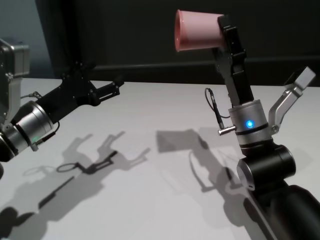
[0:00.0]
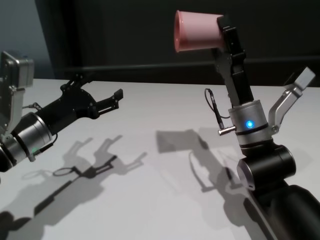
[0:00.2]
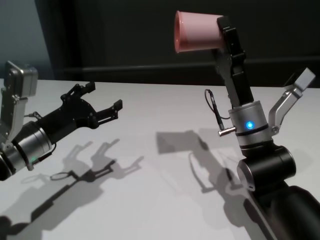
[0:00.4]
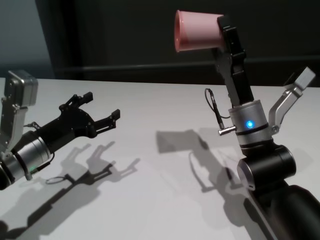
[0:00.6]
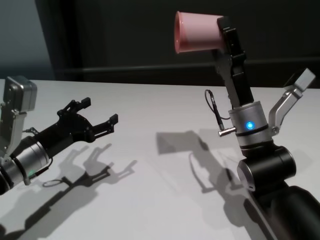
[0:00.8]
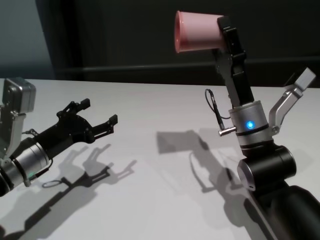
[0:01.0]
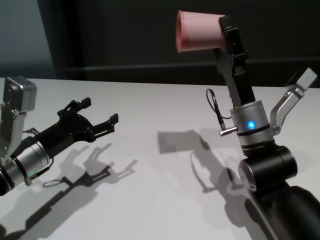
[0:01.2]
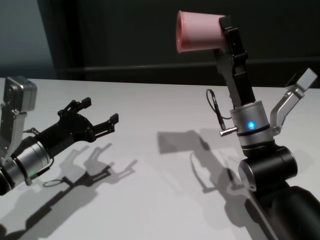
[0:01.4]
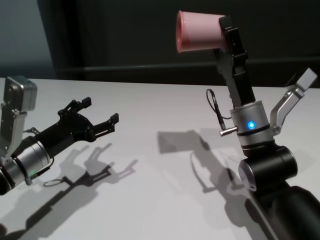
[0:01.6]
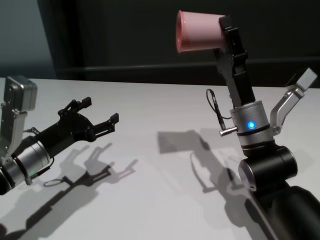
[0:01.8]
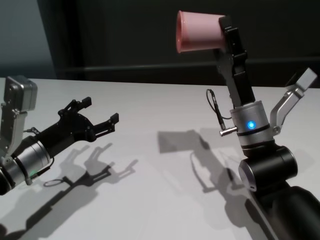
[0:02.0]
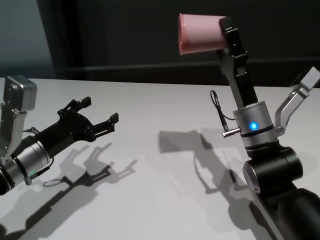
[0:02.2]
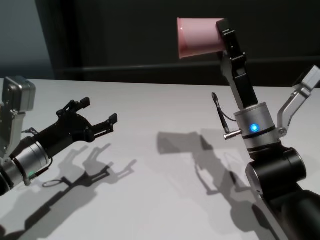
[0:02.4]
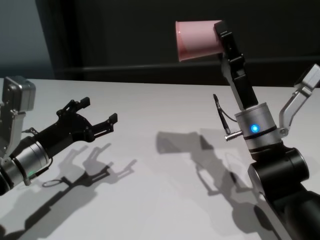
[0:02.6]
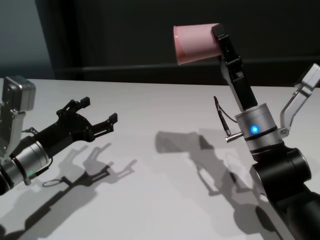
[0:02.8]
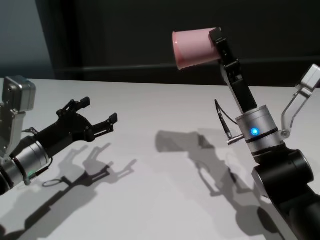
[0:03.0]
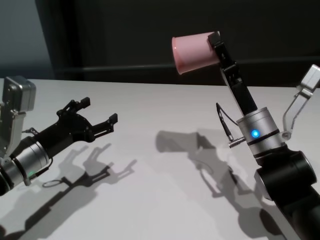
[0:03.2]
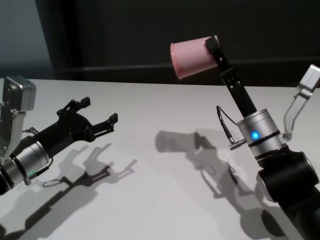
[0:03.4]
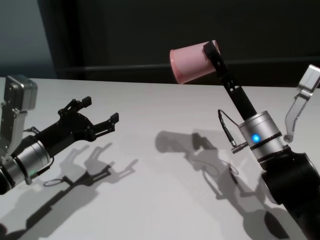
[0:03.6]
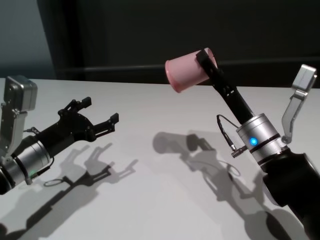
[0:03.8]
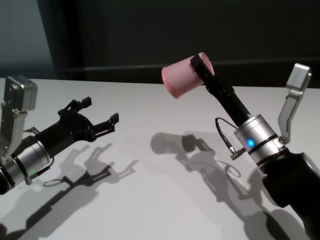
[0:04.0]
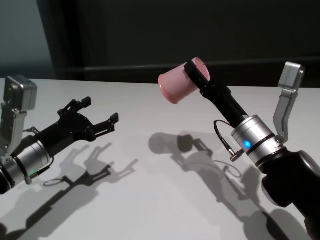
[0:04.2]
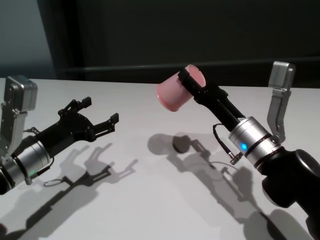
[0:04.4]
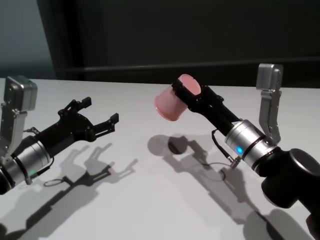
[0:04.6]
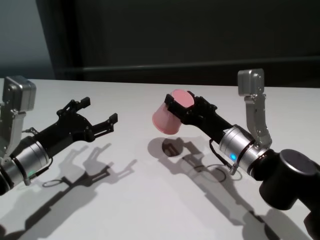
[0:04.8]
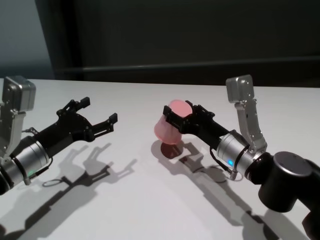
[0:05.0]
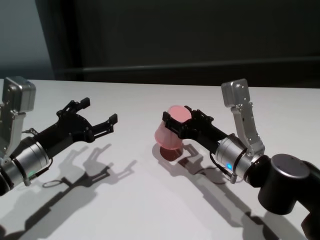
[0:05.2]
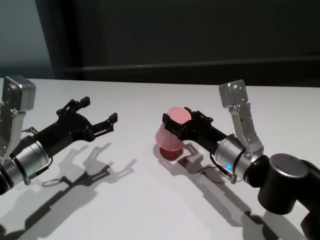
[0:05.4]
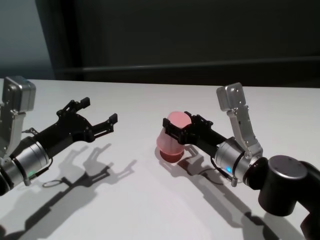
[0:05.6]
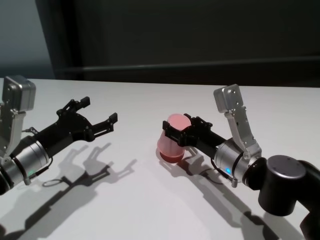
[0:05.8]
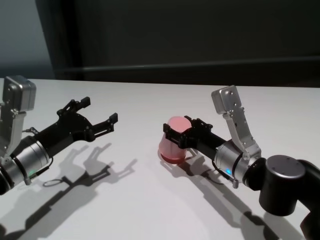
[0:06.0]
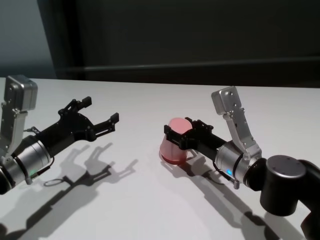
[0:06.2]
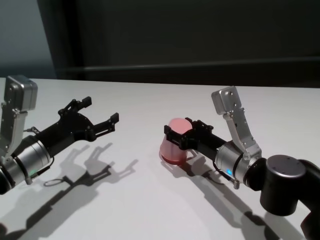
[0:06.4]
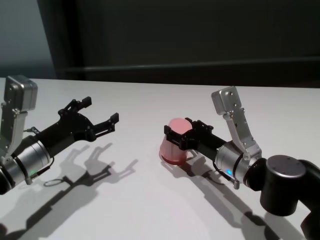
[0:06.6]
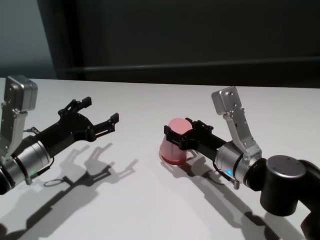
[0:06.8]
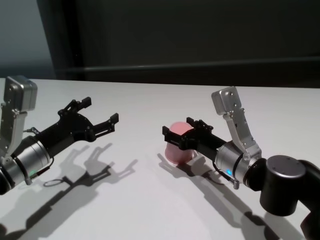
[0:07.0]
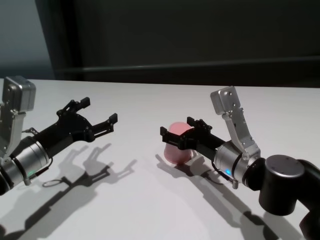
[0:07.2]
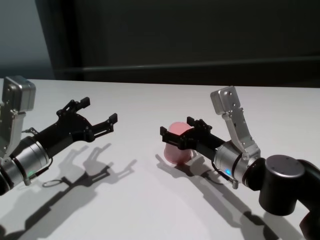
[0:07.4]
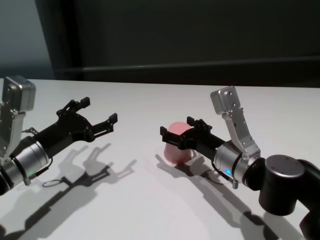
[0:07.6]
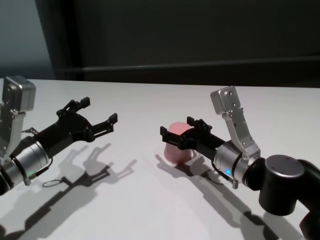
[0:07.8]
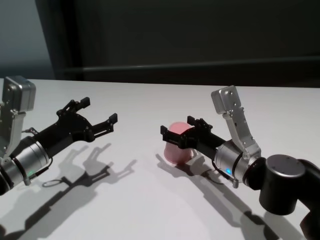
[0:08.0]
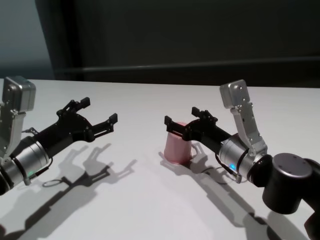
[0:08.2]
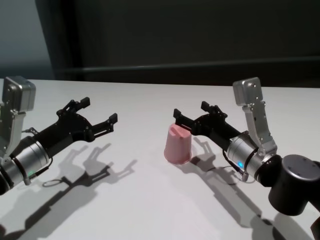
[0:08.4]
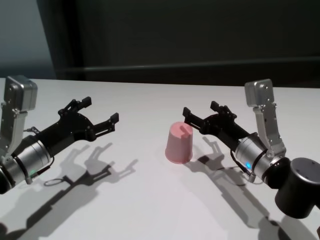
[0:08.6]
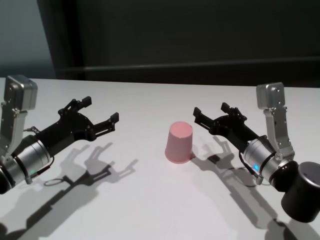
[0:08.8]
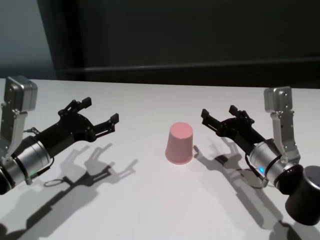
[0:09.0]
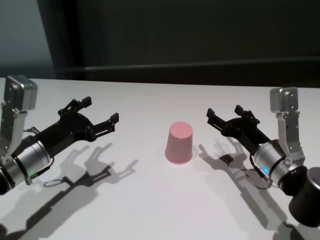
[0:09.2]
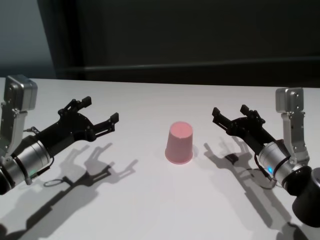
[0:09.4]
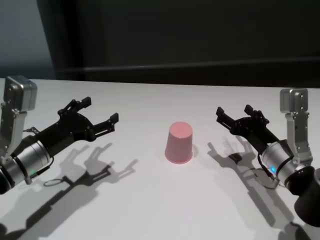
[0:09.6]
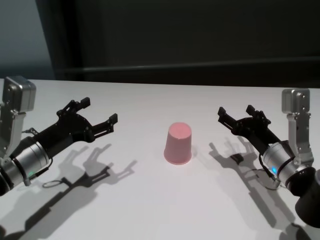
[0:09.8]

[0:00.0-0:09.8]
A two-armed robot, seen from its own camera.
Task of the whole recording: On the white table pick up the cup with one hand and transfer it to the other hand before turning it over.
Step, 0:00.0 to 0:08.2: Place the cup on the table with right gripper.

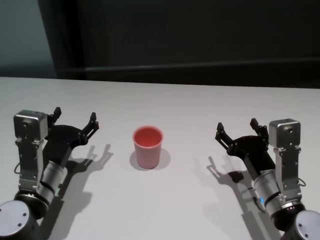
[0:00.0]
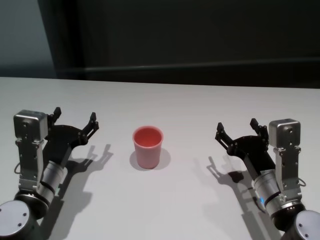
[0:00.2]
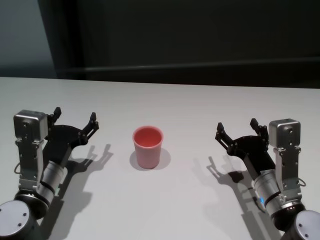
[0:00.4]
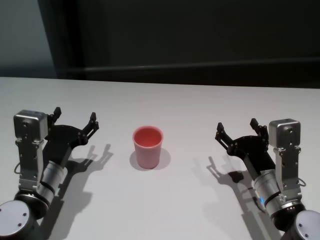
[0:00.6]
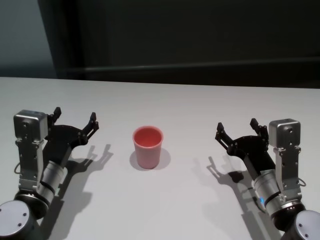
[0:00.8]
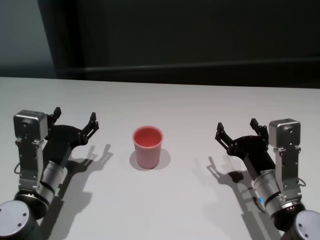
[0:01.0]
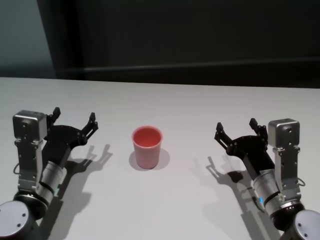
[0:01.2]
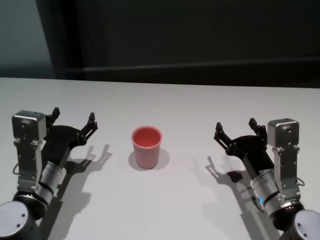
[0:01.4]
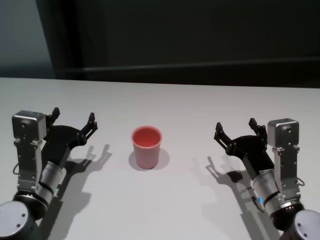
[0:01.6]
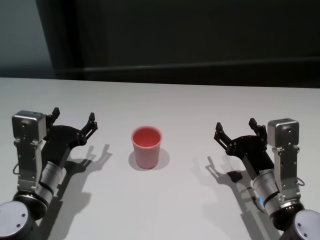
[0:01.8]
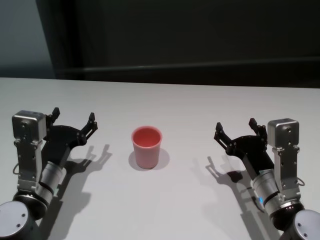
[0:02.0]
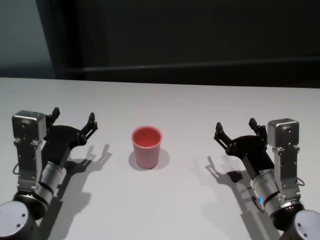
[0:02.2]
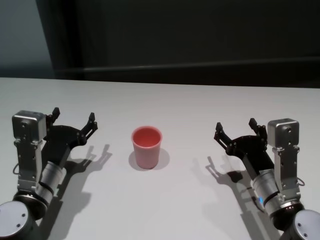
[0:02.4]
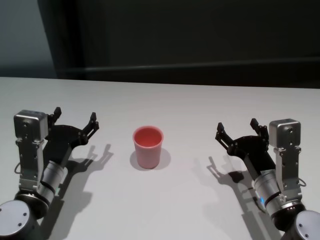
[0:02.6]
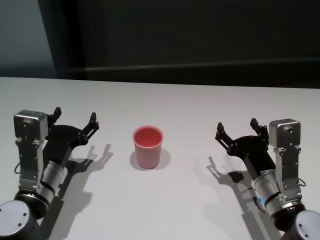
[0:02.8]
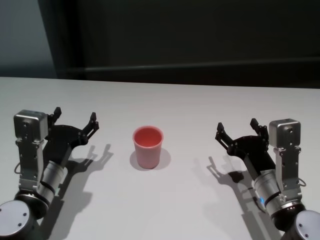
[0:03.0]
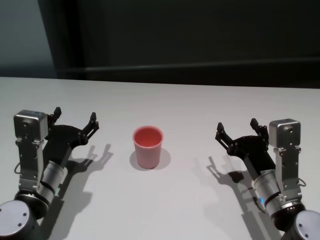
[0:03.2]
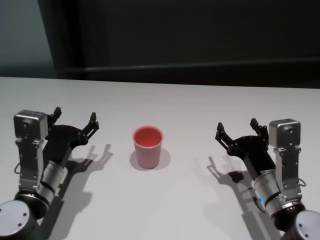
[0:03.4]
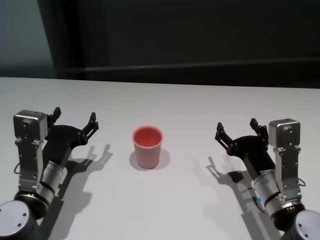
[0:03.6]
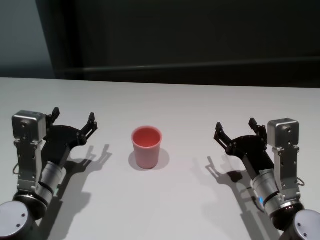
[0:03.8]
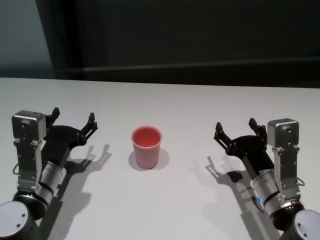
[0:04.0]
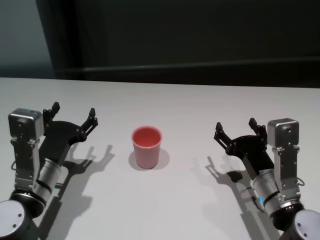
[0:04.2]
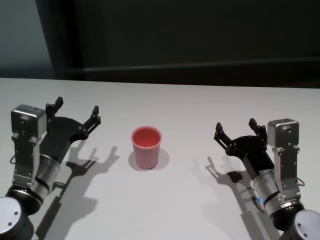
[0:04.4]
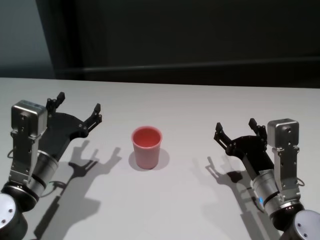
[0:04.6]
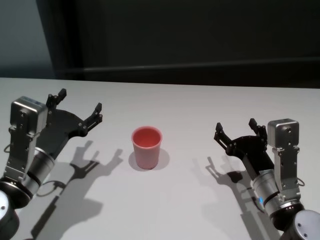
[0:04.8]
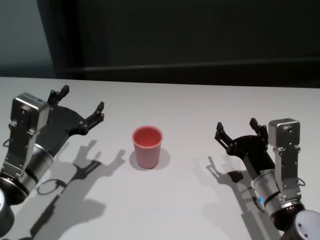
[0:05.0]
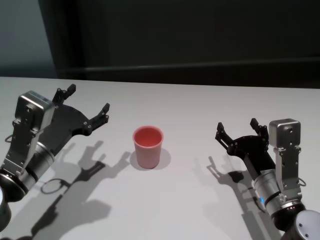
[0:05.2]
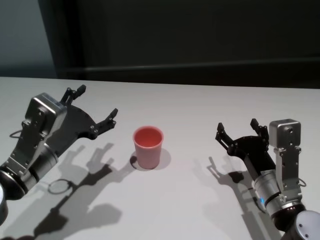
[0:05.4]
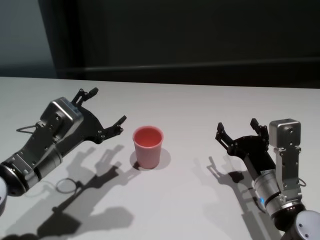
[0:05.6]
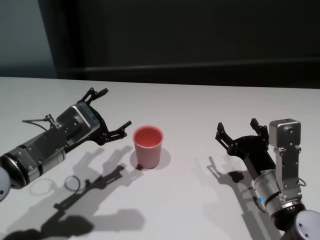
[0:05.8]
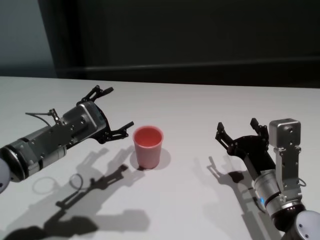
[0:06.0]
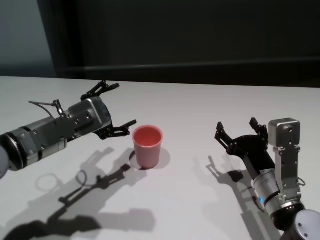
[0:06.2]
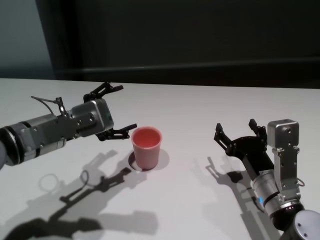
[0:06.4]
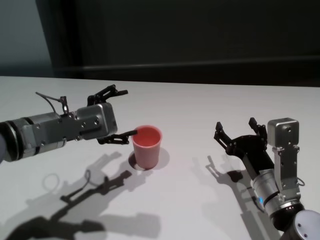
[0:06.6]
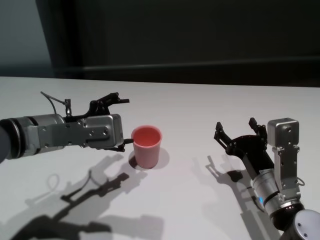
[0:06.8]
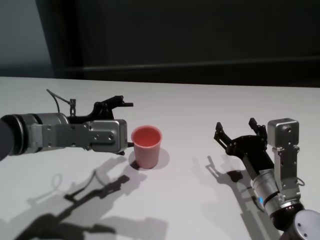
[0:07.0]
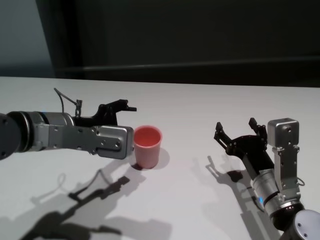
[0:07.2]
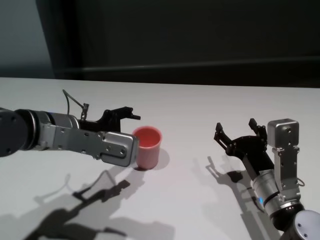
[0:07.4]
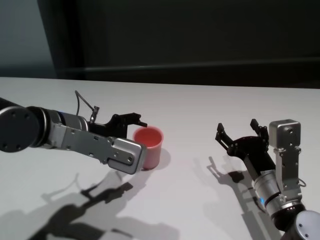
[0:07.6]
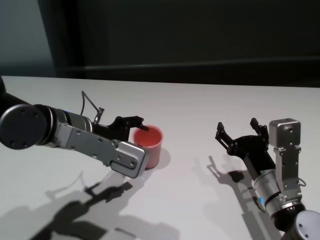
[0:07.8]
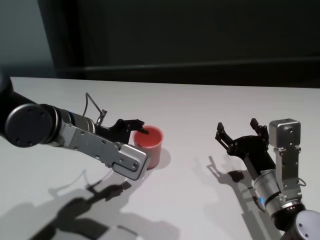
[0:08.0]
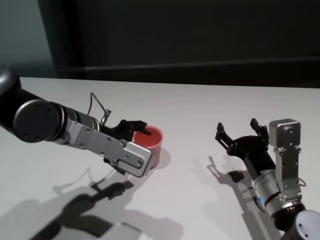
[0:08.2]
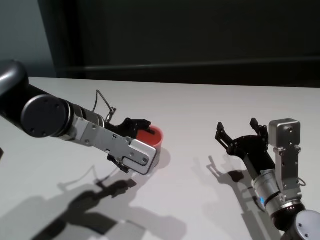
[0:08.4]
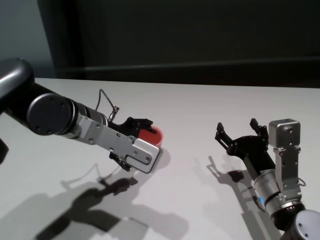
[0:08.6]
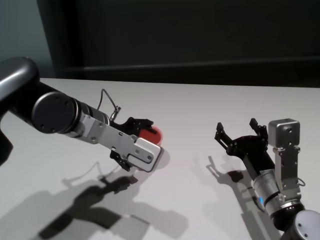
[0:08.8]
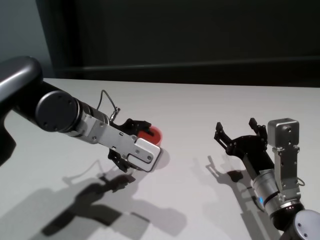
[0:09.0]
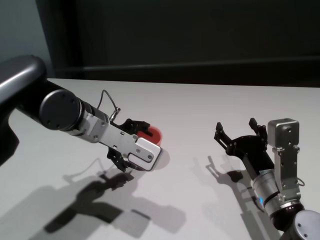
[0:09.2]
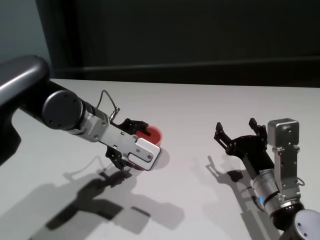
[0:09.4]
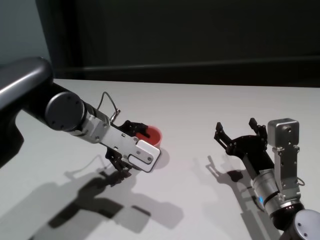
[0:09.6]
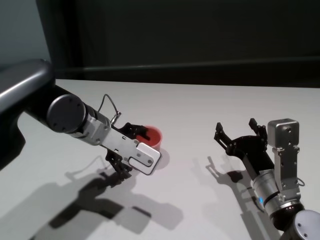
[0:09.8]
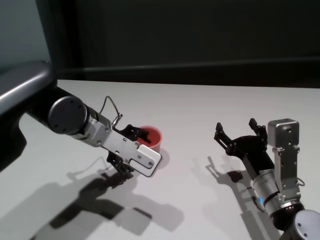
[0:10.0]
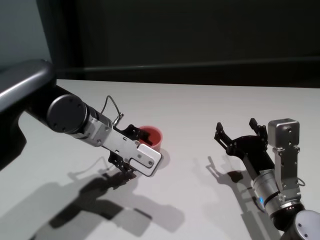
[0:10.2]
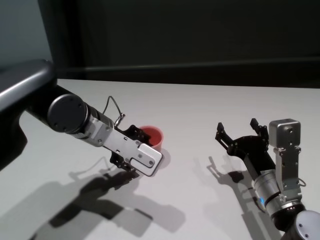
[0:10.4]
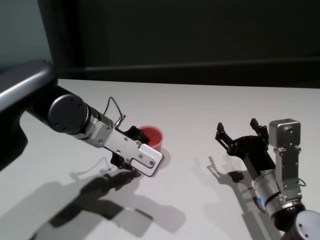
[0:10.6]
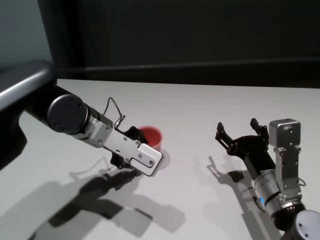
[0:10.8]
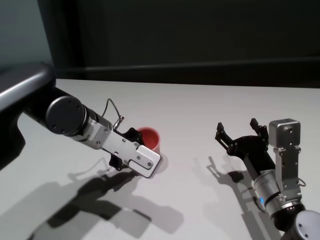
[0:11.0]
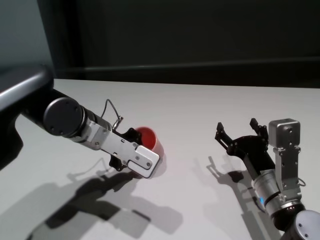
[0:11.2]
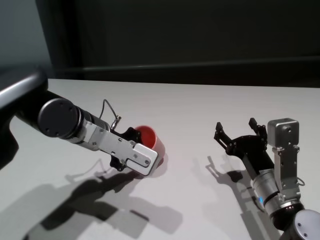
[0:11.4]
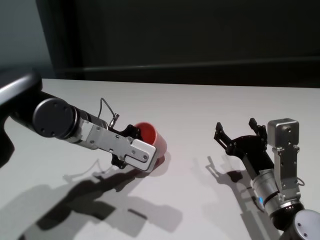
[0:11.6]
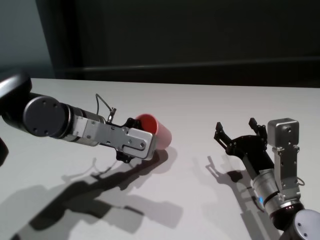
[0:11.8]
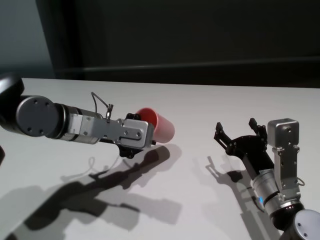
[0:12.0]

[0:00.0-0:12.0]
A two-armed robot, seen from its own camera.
Task of the whole recording: On the white table pick up the cup with one hand and transfer it to the other hand before turning it over.
Step, 0:00.0 to 0:10.8: Grasp the cup with left gripper.

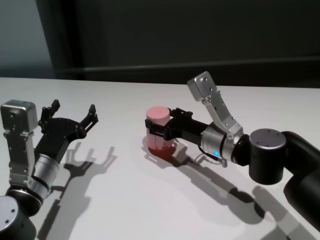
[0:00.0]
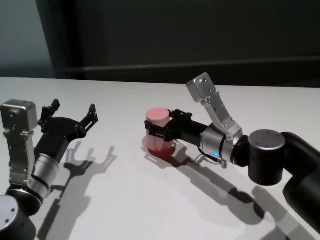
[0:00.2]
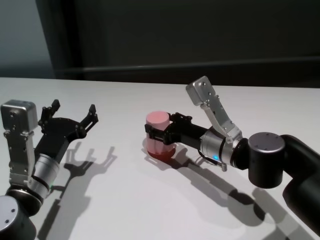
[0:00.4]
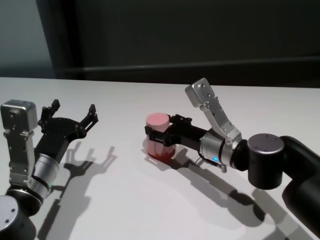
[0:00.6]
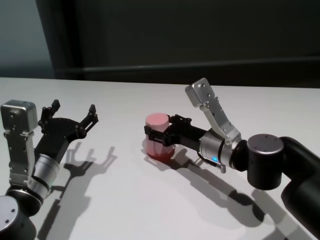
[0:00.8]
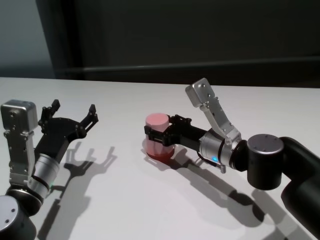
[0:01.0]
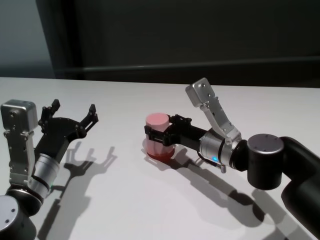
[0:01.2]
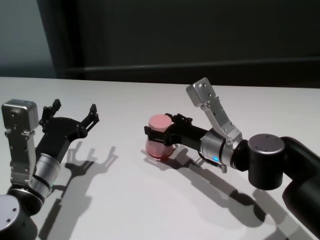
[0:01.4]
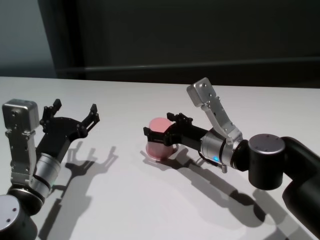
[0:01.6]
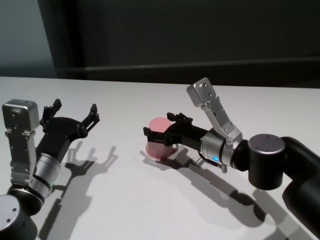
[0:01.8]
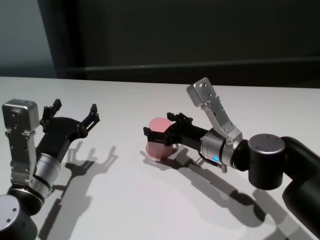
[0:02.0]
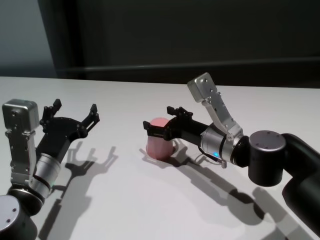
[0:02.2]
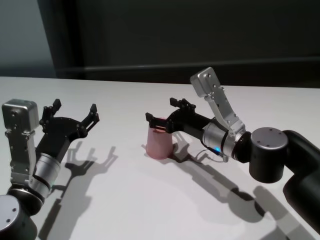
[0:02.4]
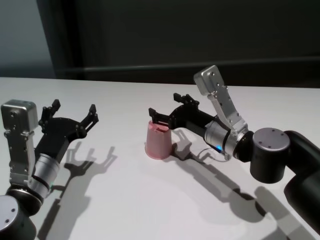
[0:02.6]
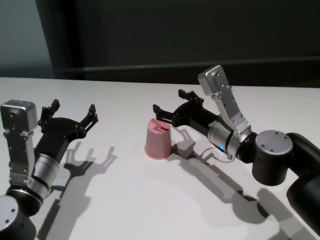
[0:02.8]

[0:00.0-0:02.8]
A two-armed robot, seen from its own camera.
Task of the whole recording: On the white table pick up the cup with one hand and transfer it to the other hand before turning it over.
Step, 0:00.0 to 0:02.6: Place the cup on the table with right gripper.
